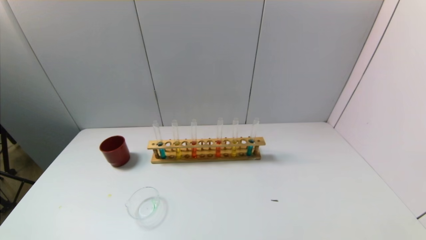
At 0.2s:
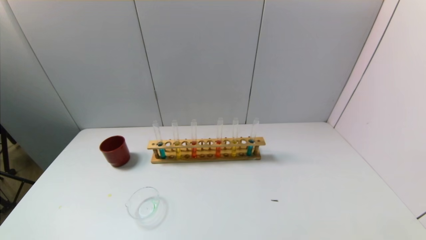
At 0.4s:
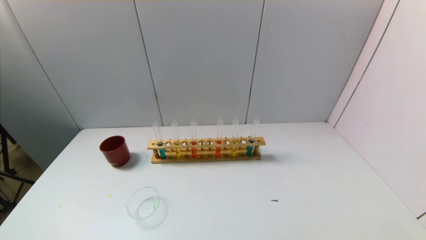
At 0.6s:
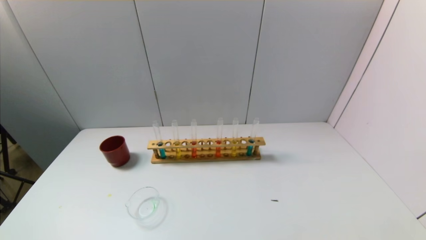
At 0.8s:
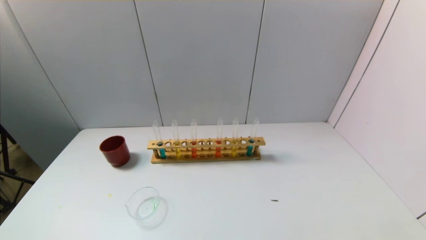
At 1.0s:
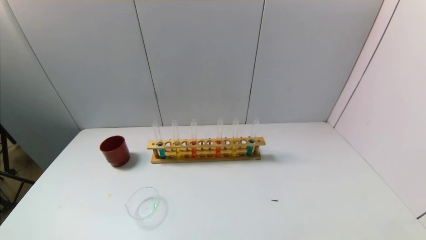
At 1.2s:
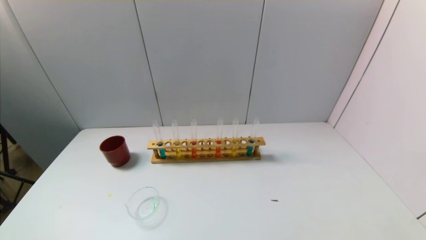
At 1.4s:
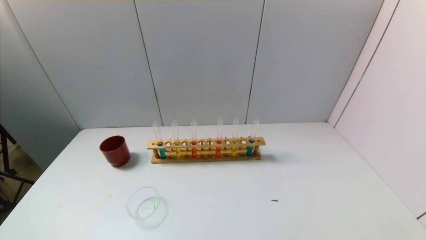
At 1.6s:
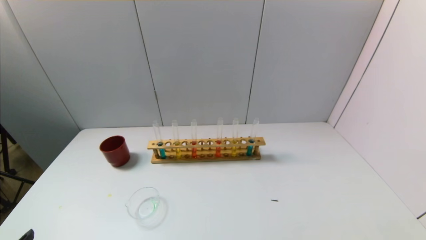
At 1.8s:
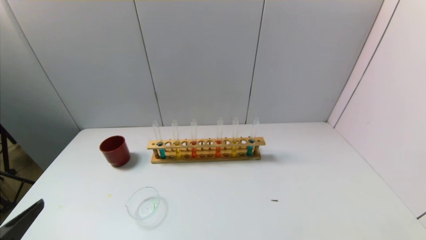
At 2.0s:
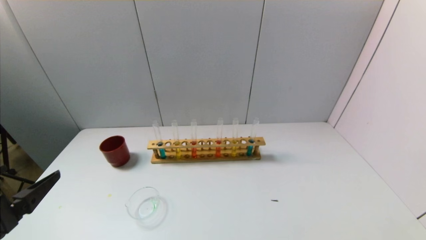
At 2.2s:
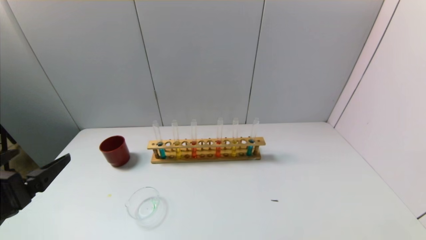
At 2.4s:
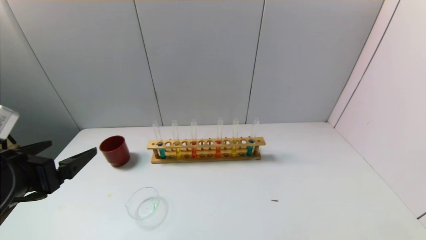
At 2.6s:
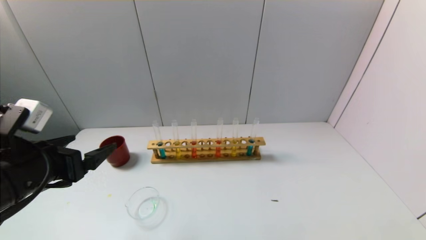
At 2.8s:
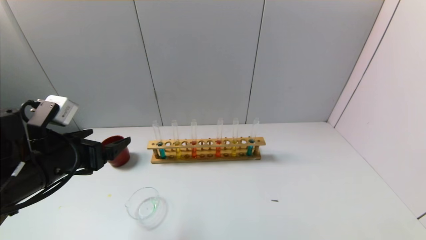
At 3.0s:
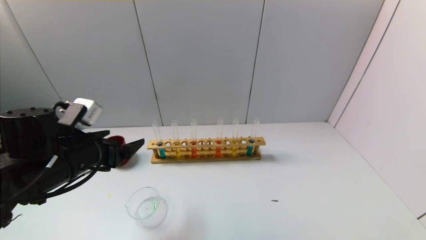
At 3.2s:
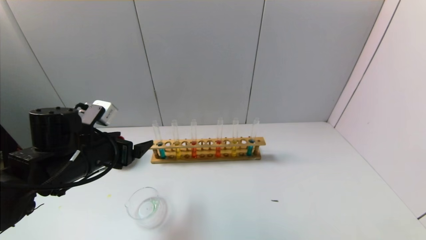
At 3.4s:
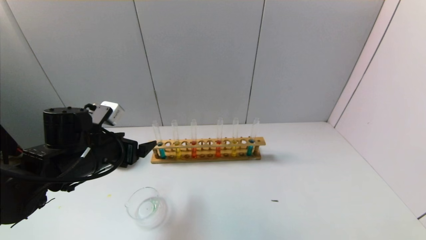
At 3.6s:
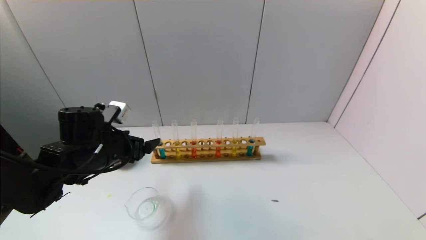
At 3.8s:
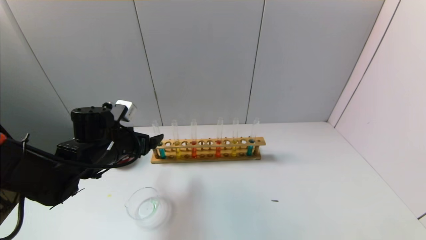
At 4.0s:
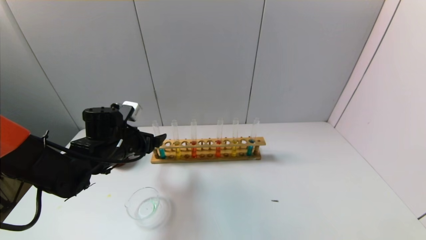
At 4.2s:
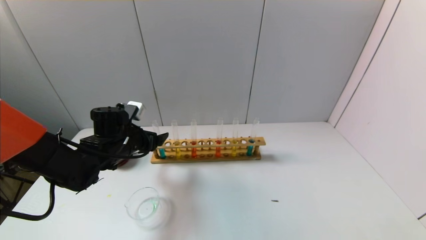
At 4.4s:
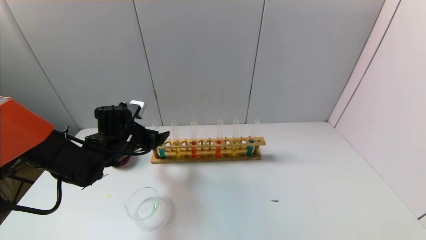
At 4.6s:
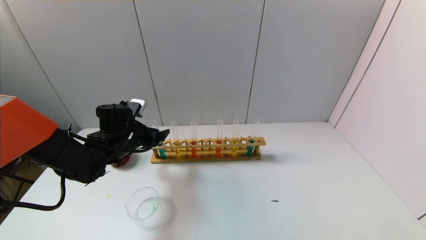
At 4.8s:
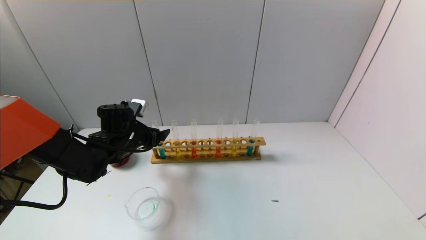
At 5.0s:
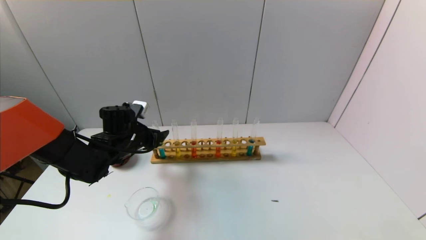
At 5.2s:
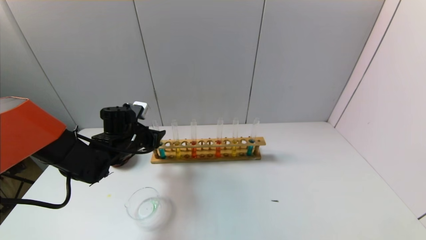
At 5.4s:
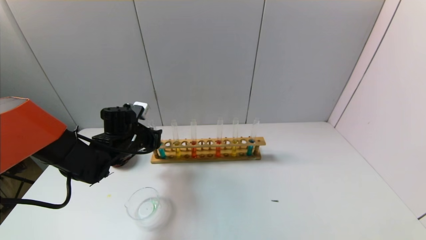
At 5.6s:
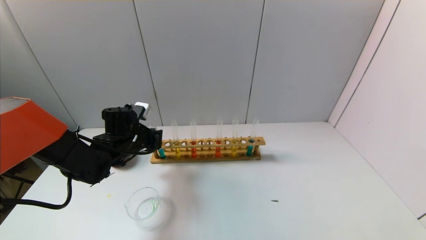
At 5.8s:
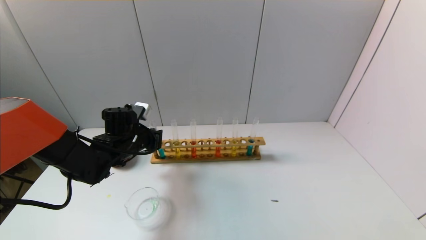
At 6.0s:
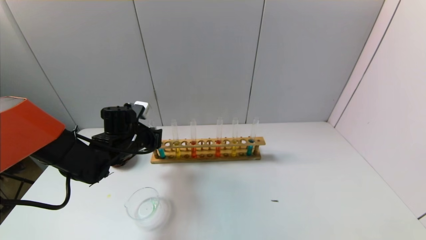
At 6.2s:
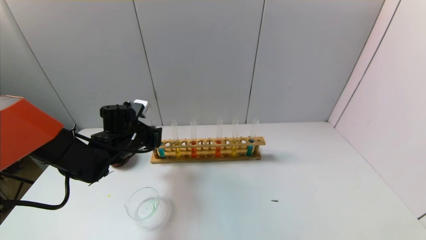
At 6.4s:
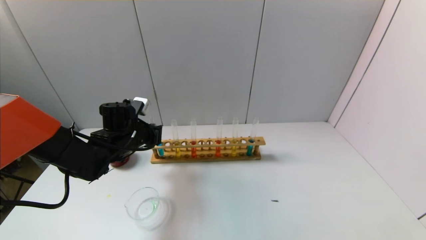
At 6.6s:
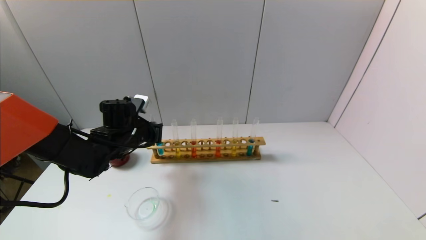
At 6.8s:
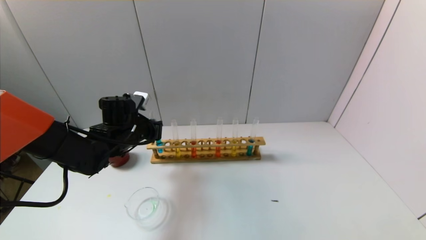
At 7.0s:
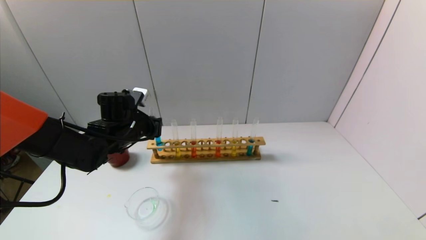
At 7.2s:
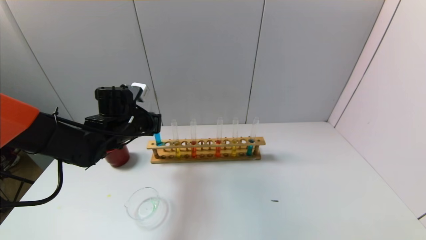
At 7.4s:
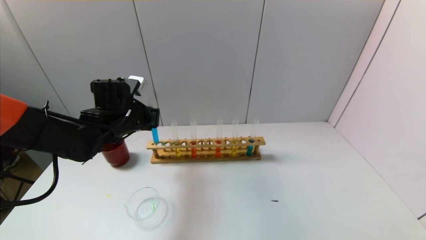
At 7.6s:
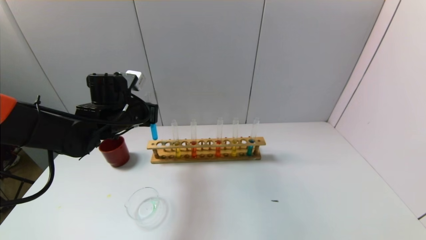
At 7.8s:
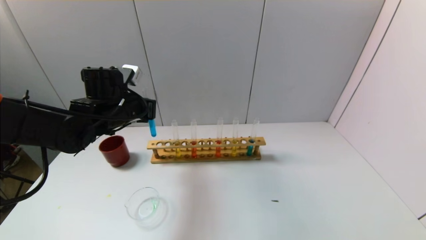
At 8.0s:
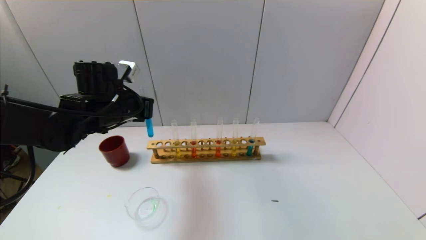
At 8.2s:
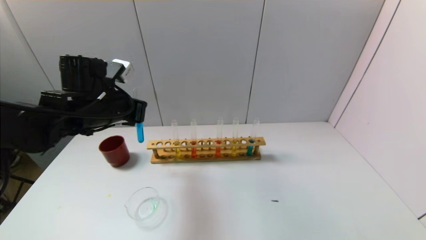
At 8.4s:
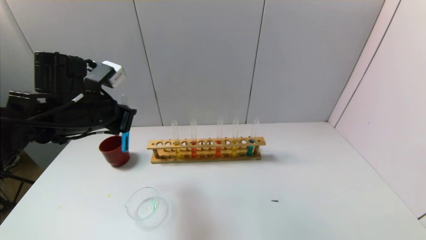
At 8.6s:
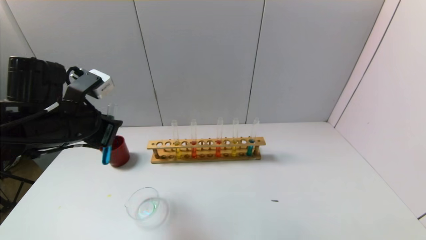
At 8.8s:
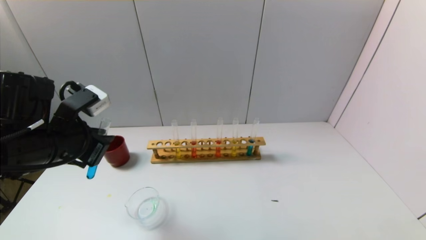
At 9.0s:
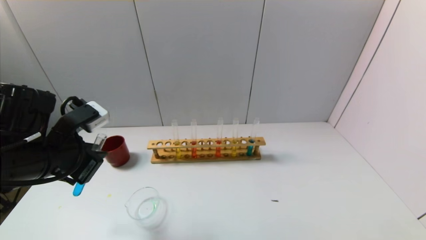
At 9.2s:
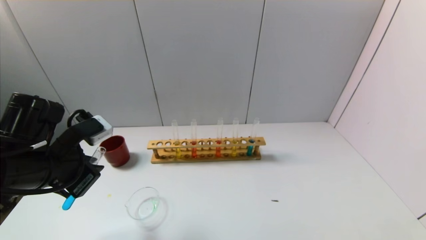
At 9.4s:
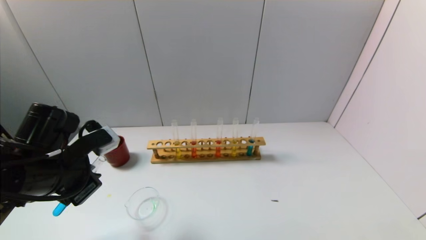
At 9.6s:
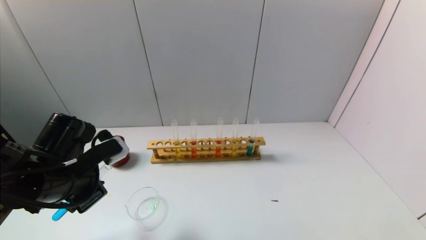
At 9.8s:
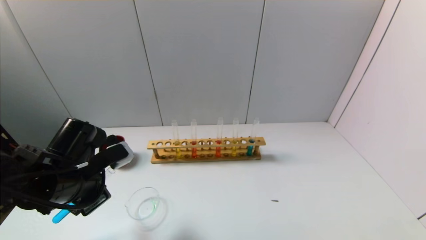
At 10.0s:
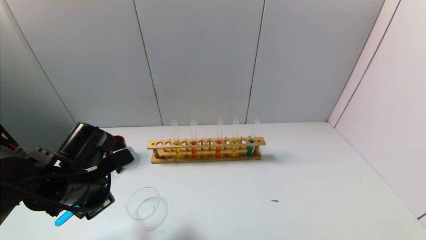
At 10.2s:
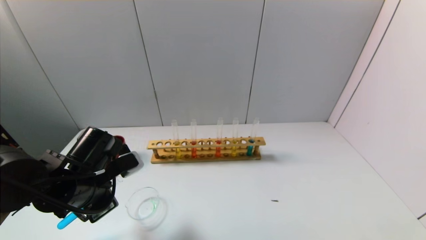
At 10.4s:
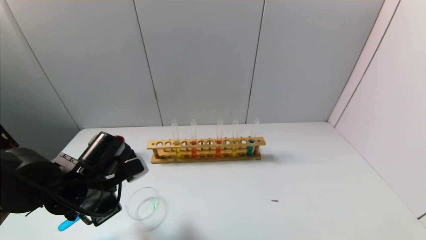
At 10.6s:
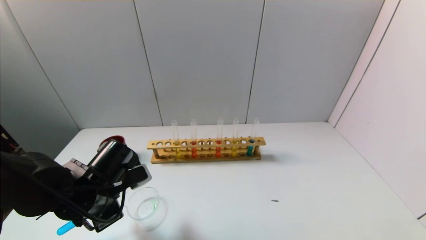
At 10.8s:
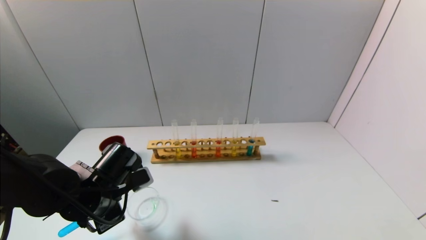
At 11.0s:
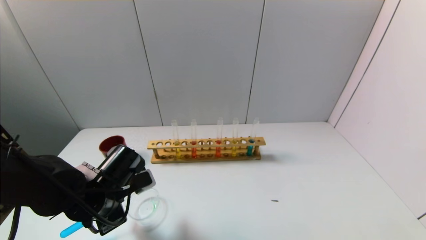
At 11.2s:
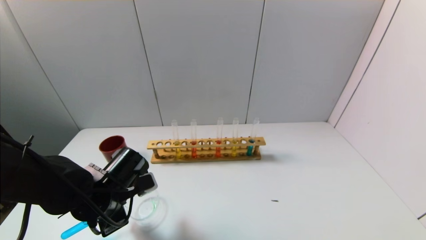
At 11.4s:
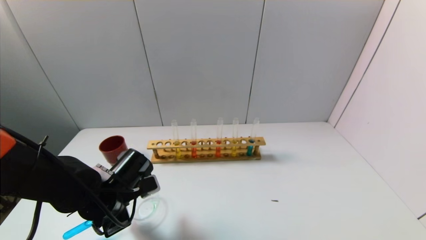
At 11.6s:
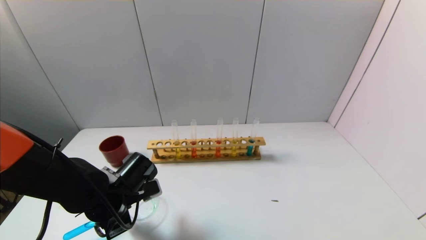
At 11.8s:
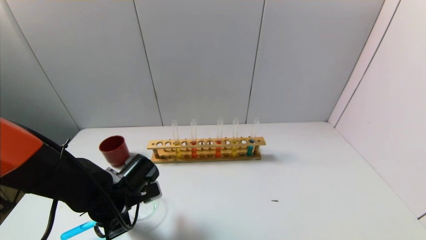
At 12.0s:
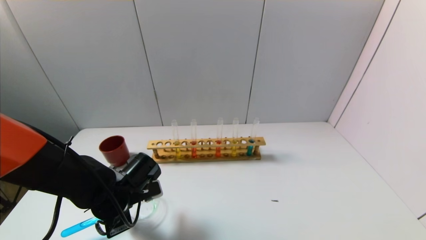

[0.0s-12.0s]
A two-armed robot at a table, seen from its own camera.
Task of the whole recording: pick up the test tube with yellow pigment and the test tube with blue pigment by grippers and pour them into the beaker.
Step, 0.0s to 5.4s: Grasp the blue reagent with the left gripper.
1.6s to 3.0s: The left gripper goes some 20 cm forward.
3.0s to 4.4s: The left gripper heads forward and downward, covering some 15 cm.
4.4s to 6.0s: The left gripper closes up.
6.0s to 7.6s: The left gripper travels upward by approximately 10 cm.
7.6s to 9.0s: The left gripper travels backward by about 15 cm.
9.0s to 10.4s: The left gripper travels downward by some 10 cm.
10.4s to 12.0s: The left gripper is displaced downward by some 5 cm.

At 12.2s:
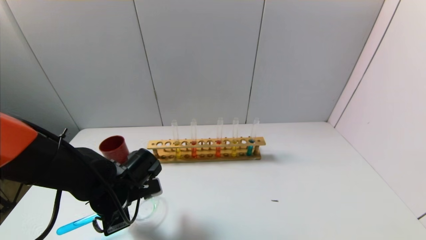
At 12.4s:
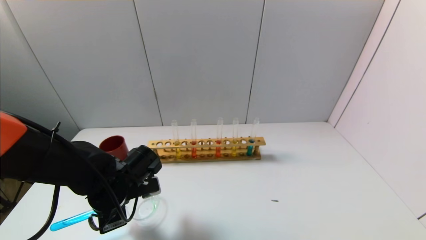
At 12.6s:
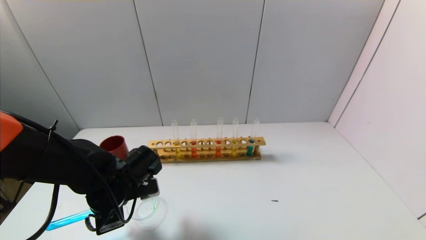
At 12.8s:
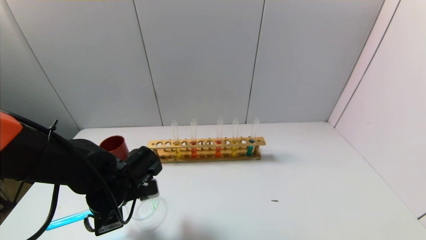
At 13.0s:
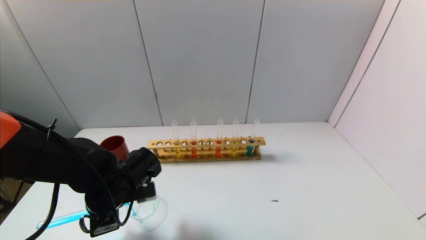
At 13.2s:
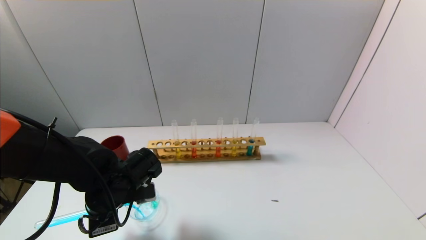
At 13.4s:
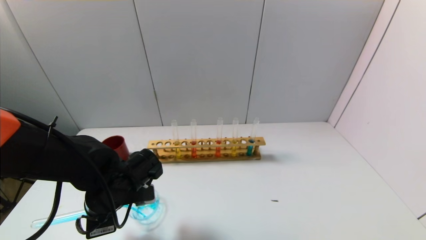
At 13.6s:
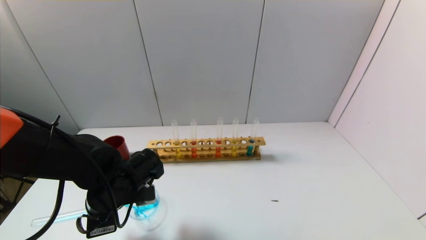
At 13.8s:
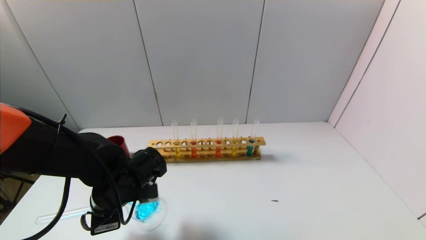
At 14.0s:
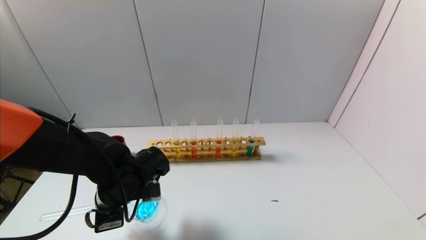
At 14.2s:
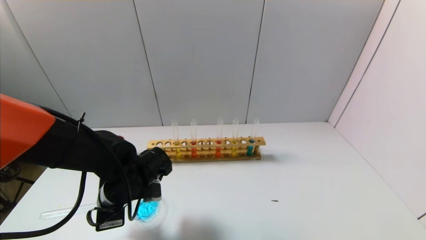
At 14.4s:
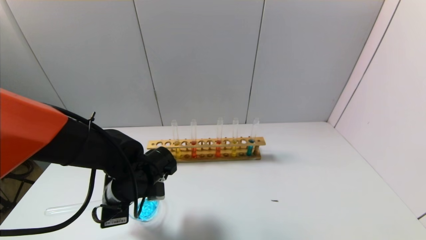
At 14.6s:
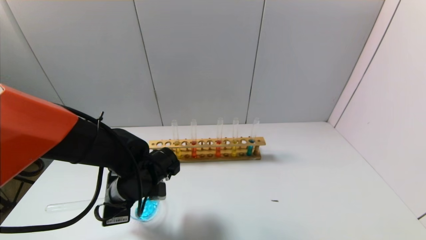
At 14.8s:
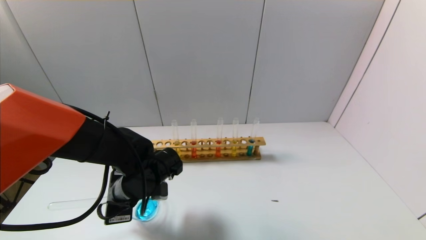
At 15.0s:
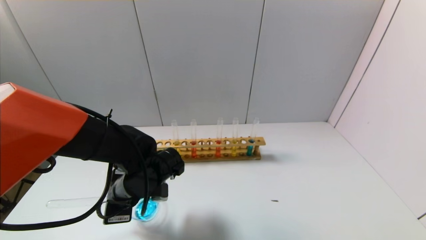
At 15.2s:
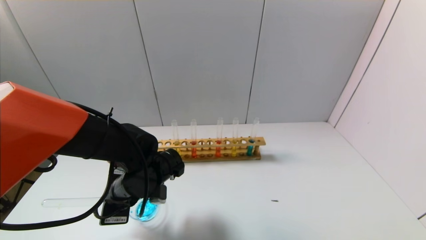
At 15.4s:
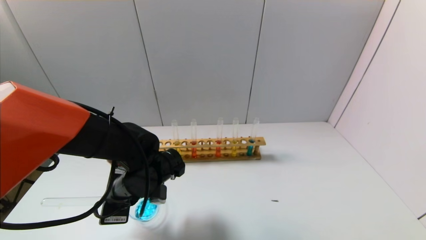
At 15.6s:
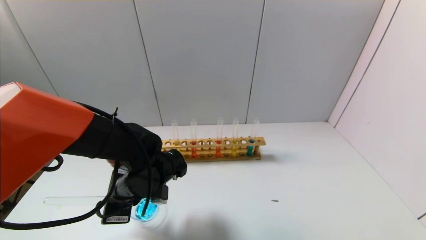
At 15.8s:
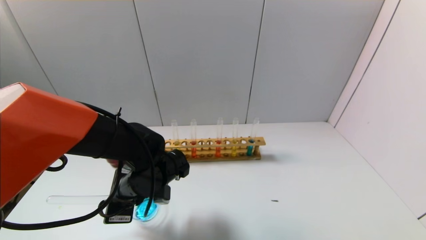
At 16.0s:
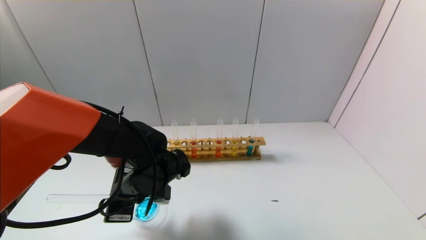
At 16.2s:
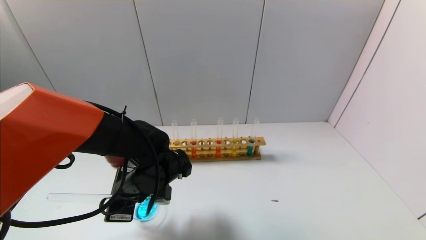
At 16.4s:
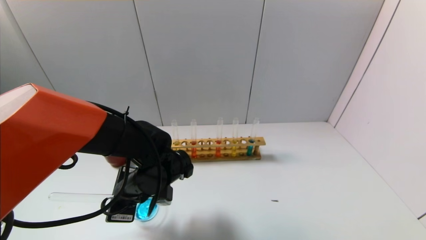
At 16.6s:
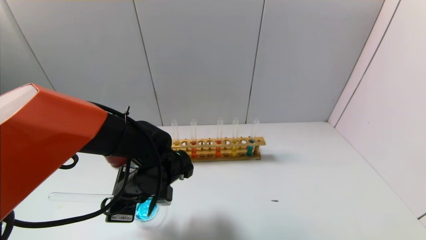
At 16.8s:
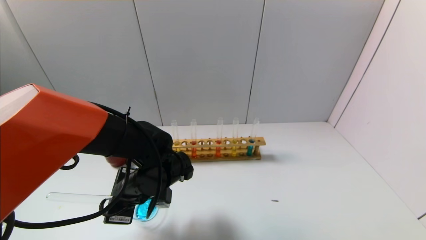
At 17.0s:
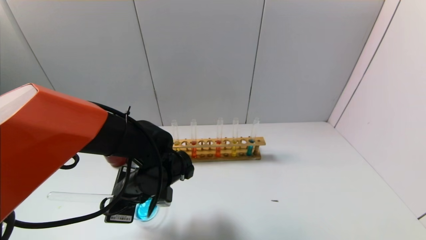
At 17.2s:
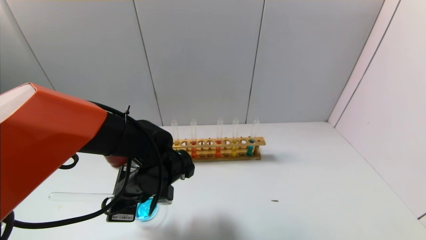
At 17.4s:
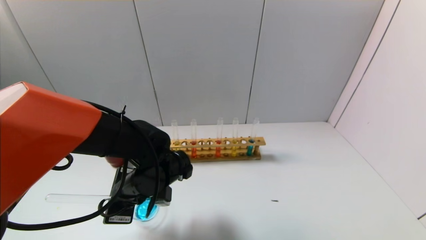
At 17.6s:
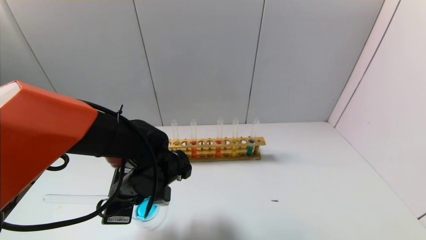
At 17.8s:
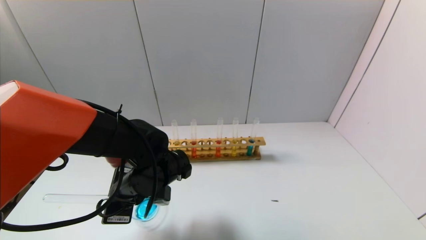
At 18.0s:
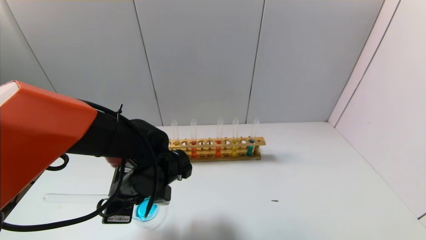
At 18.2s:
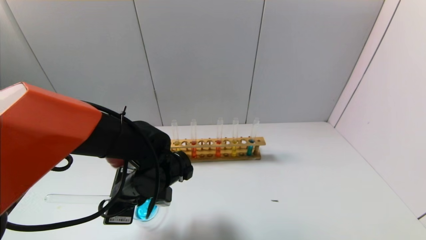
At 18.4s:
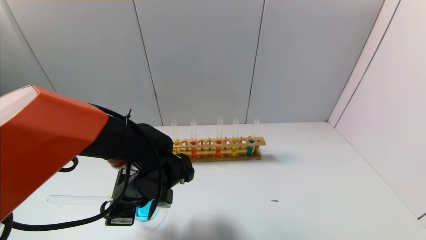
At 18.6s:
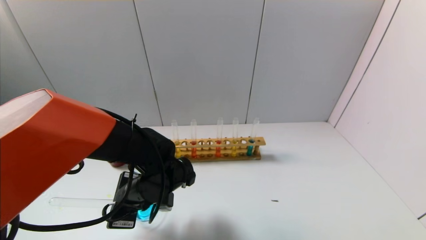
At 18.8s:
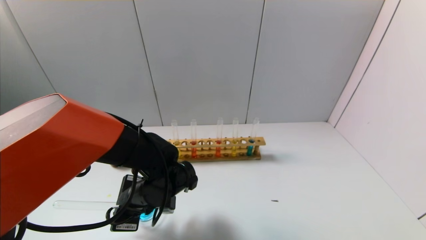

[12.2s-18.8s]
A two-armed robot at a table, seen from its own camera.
Task of the whole recording: pick up the test tube with yellow pigment and the test tube with blue pigment by grippers and pour them into the beaker.
Step, 12.2s to 17.6s: Pour the blue reagent into the graduated cylinder with the left gripper.
12.2s to 13.8s: The grippers stay close to where they were, moving slightly.
13.8s to 18.8s: The grippers move only a little.
